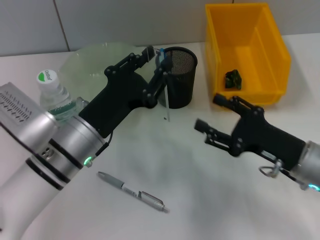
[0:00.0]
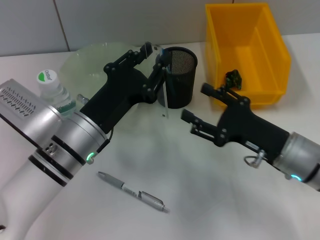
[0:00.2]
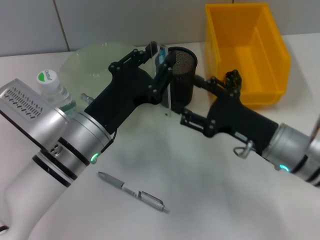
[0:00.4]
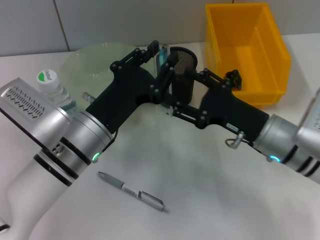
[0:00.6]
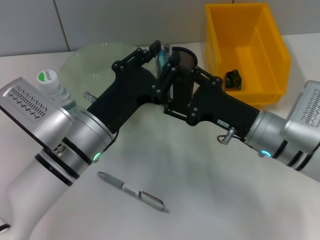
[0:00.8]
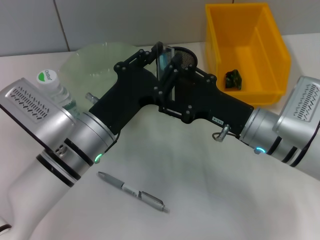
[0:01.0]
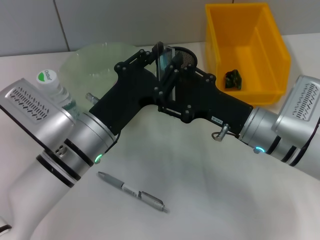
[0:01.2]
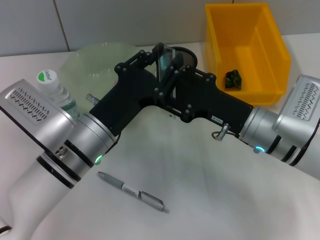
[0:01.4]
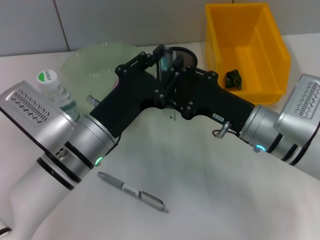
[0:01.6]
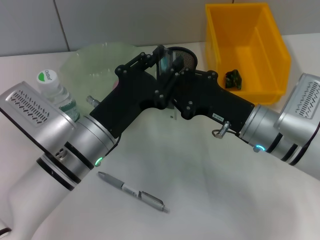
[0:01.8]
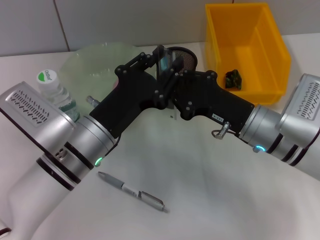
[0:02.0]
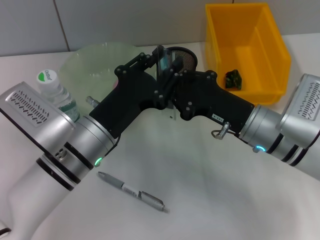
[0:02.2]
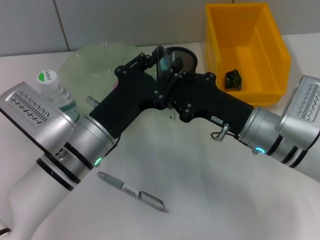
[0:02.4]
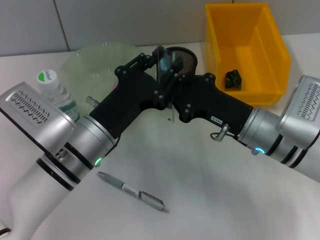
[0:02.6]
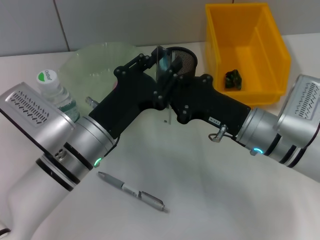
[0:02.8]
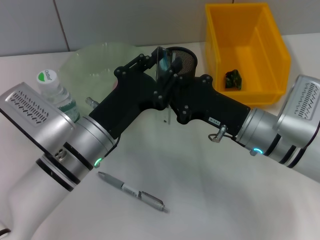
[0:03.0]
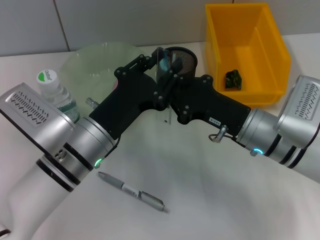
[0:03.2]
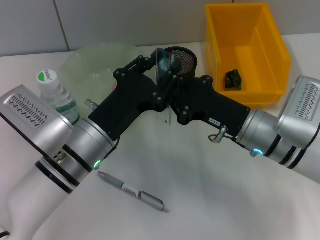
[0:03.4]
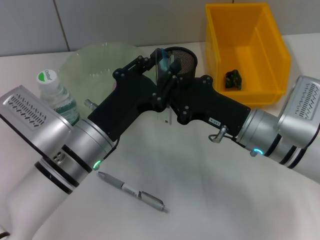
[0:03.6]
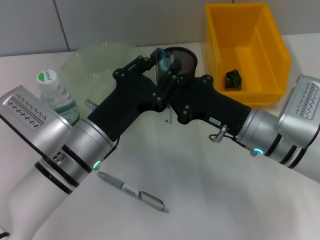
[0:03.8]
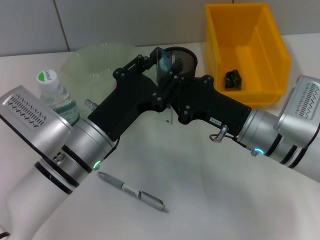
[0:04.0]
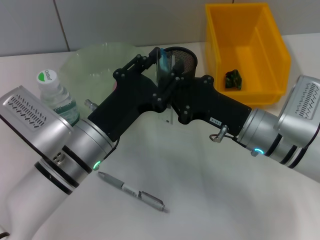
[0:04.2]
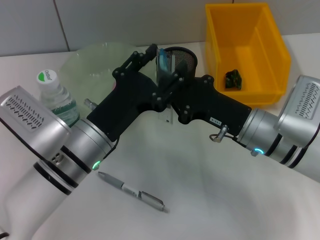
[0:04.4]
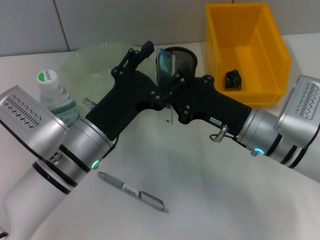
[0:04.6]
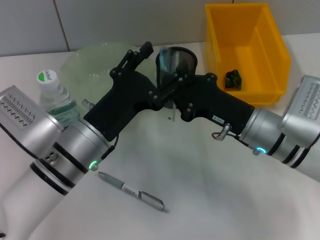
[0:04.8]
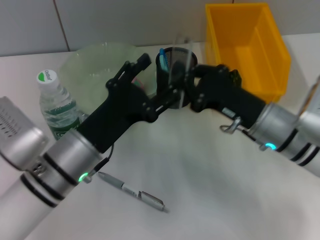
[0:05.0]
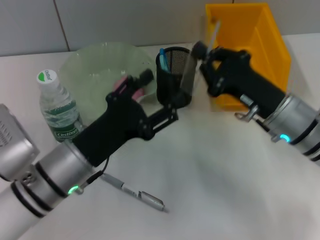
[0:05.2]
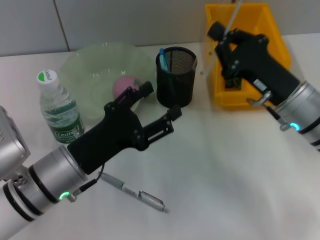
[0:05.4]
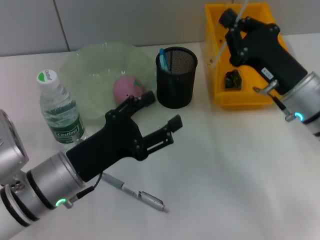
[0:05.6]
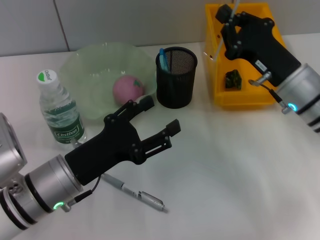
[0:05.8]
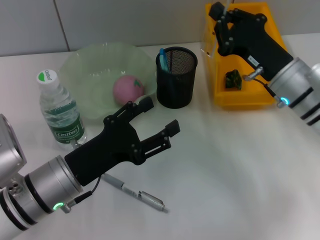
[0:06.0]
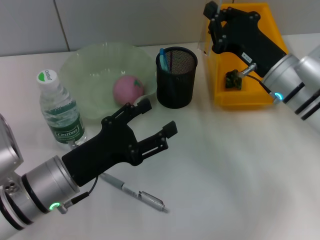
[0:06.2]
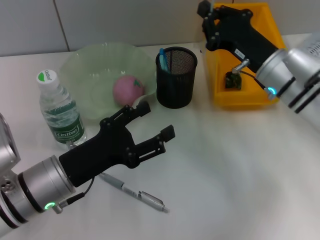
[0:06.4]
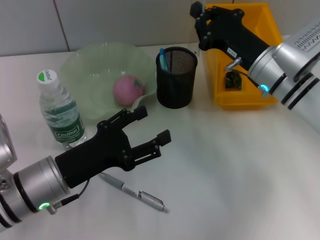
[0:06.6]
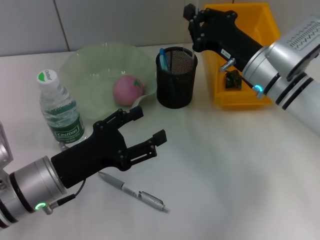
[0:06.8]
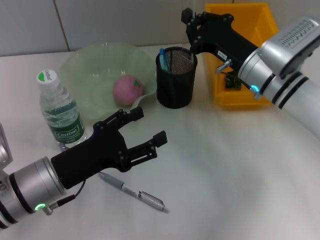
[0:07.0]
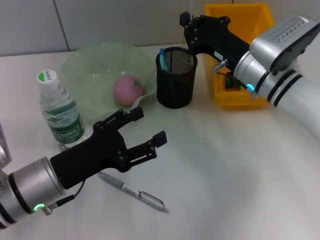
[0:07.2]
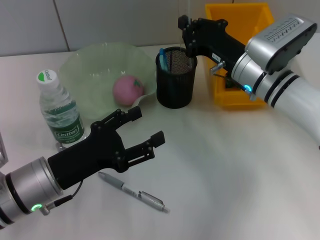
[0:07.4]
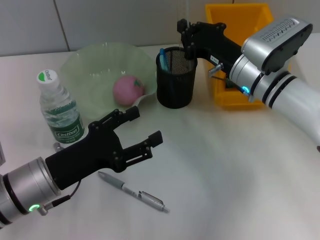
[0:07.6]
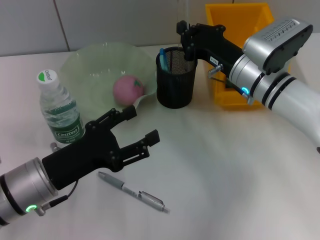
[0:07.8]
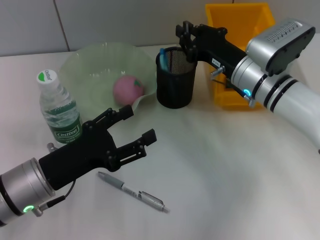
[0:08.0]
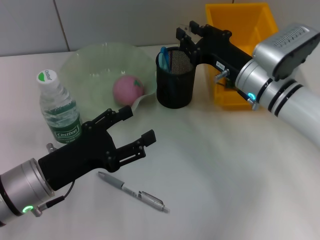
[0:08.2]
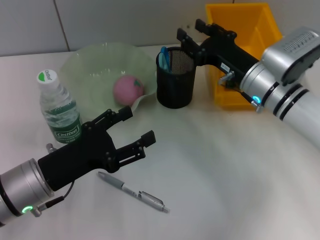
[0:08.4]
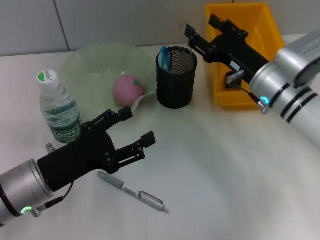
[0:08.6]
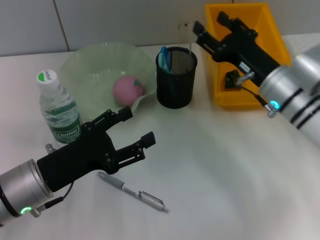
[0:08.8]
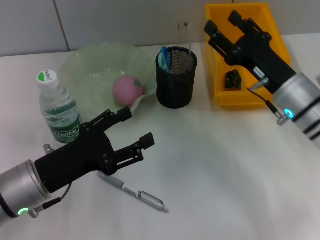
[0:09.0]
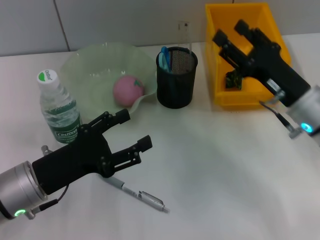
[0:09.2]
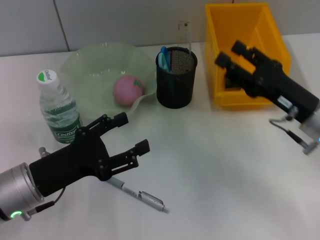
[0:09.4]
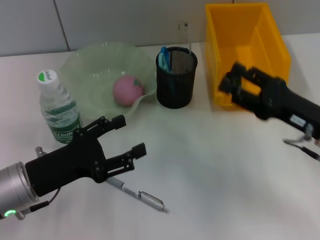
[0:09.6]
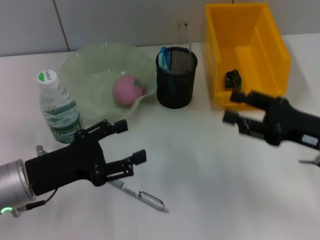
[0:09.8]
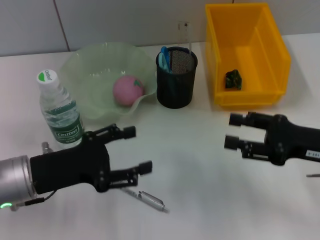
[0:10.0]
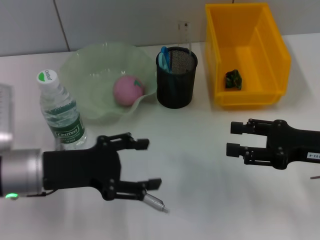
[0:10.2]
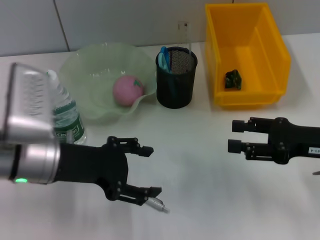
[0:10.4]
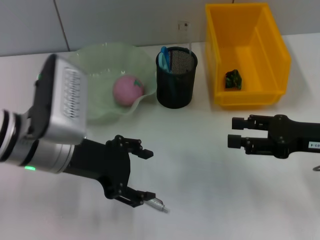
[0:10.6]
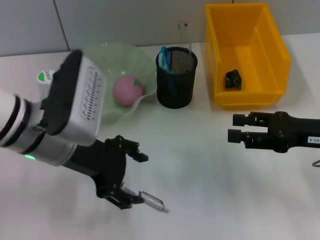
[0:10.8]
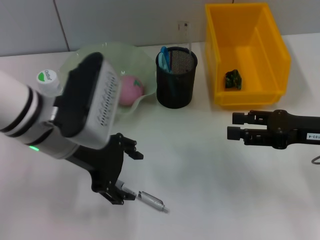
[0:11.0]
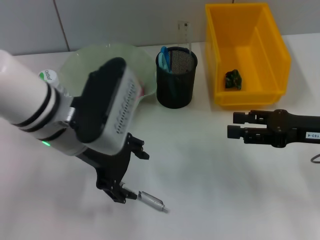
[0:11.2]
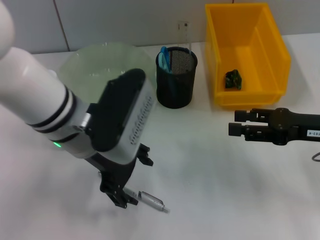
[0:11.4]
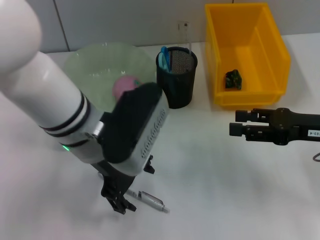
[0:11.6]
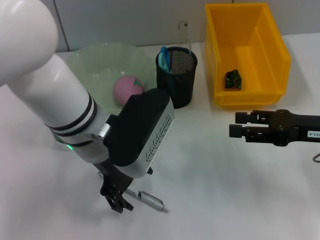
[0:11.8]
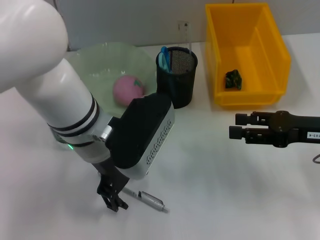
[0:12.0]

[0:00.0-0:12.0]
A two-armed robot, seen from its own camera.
Step, 0:00.0 to 0:04.2: Pass the ruler from the left hand to the right hand.
Step, 0:04.4 to 0:08.4: Place the ruler into the pen holder with the right hand.
0:00.0 to 0:01.6: The right gripper shifts about 10 cm to the left and forward.
0:01.6 to 0:03.0: The right gripper closes up.
0:03.0 to 0:04.4: The two grippers keep their place.
0:04.4 to 0:06.0: The right gripper ends up some 5 cm from where it was. The left gripper changes place by roughly 5 cm, and opens.
0:06.0 to 0:07.6: The right gripper changes place by roughly 5 cm.
0:07.6 to 0:09.0: The right gripper heads backward, covering about 5 cm, and opens.
0:09.0 to 0:10.4: The right gripper is displaced to the right and backward by some 10 cm, while the left gripper heads upward, covering roughly 5 cm.
0:10.4 to 0:12.0: The left gripper heads to the right, covering about 10 cm.

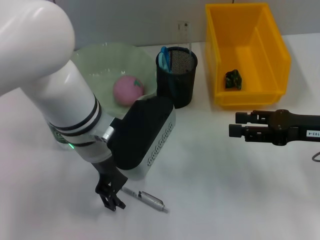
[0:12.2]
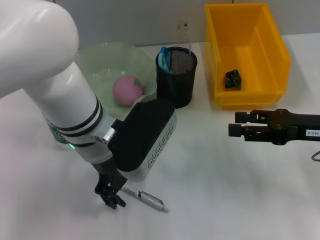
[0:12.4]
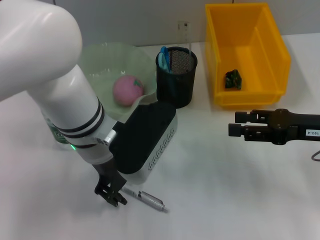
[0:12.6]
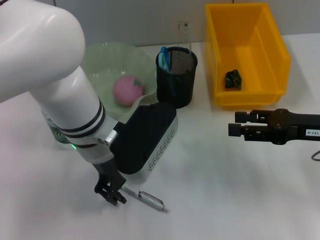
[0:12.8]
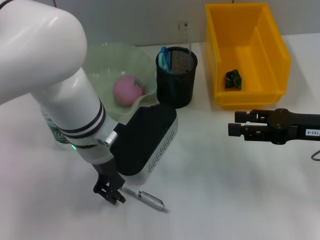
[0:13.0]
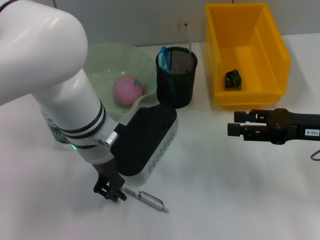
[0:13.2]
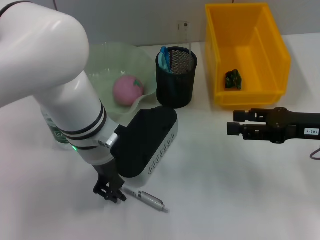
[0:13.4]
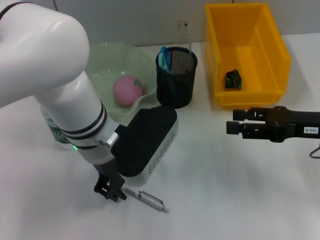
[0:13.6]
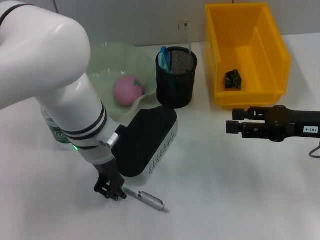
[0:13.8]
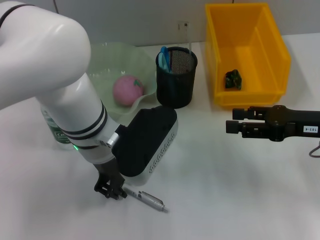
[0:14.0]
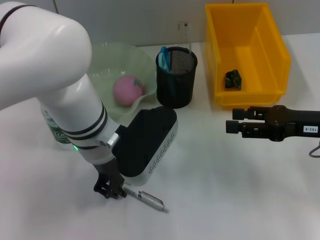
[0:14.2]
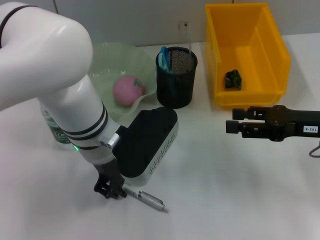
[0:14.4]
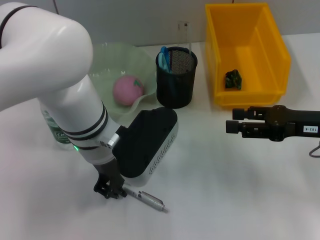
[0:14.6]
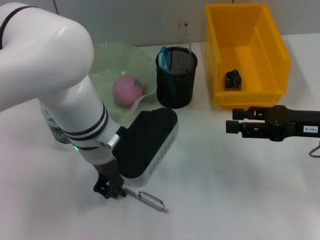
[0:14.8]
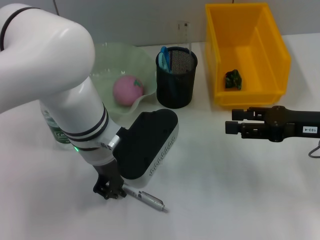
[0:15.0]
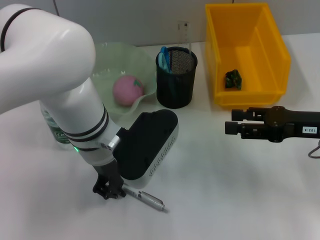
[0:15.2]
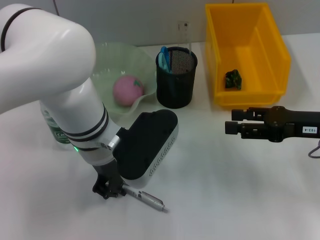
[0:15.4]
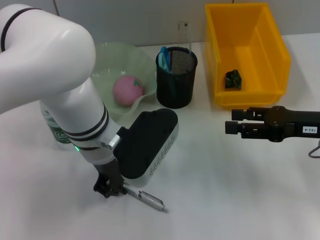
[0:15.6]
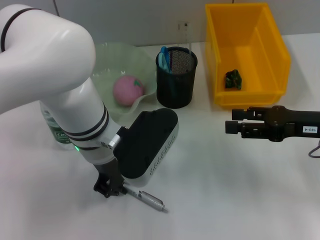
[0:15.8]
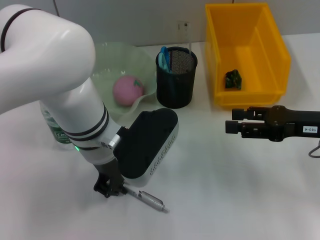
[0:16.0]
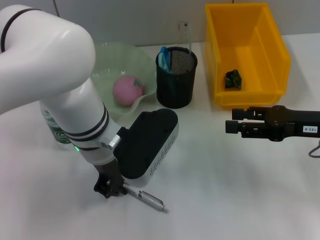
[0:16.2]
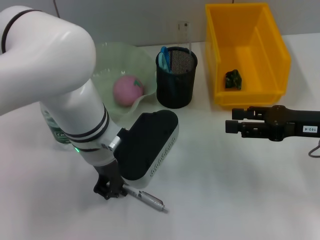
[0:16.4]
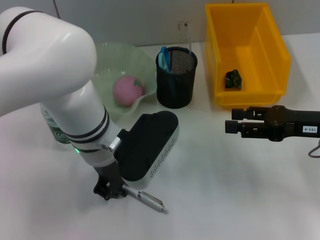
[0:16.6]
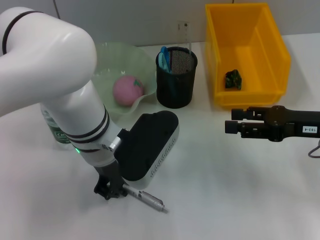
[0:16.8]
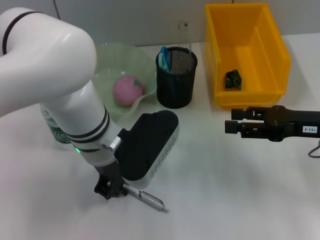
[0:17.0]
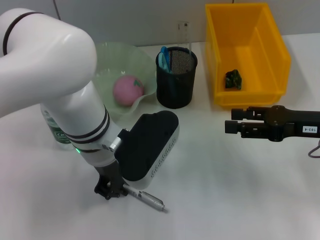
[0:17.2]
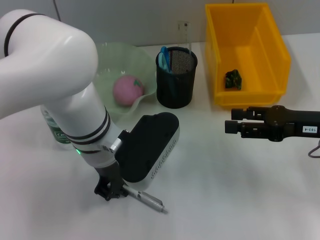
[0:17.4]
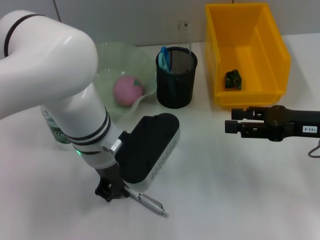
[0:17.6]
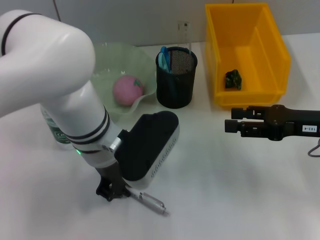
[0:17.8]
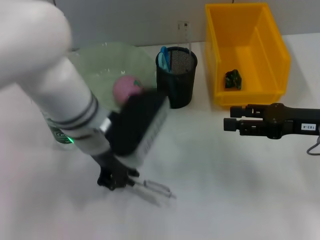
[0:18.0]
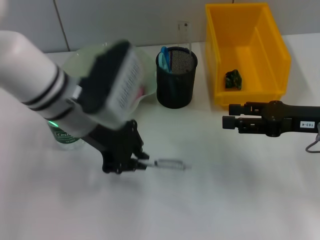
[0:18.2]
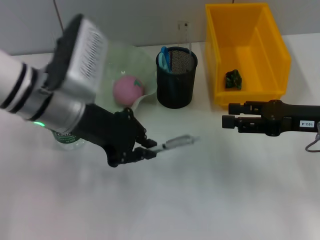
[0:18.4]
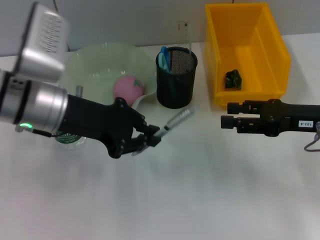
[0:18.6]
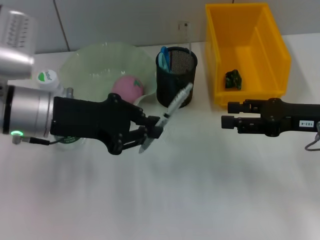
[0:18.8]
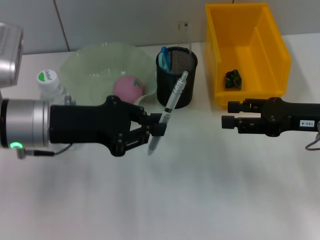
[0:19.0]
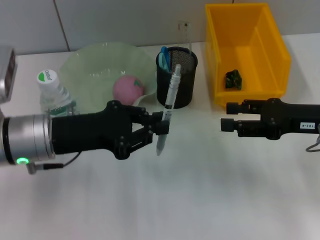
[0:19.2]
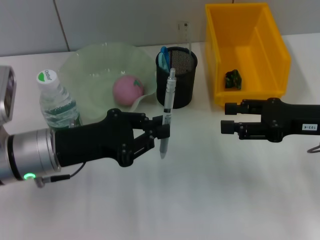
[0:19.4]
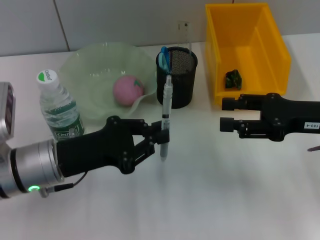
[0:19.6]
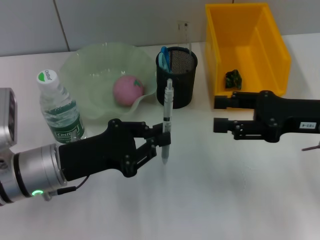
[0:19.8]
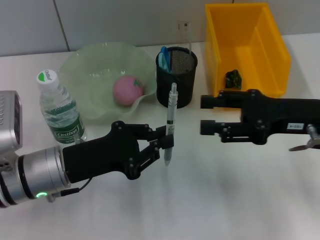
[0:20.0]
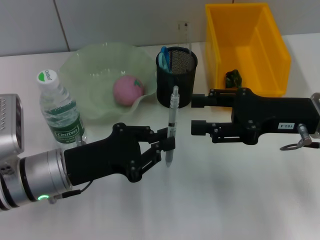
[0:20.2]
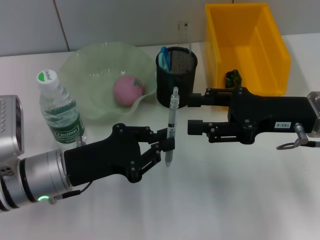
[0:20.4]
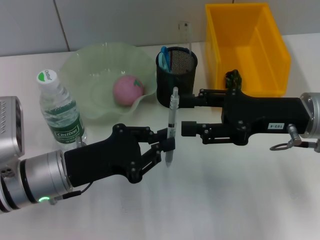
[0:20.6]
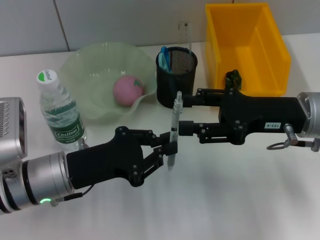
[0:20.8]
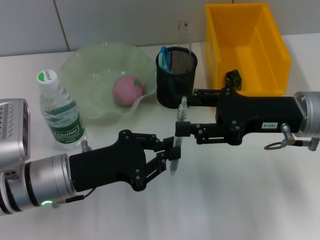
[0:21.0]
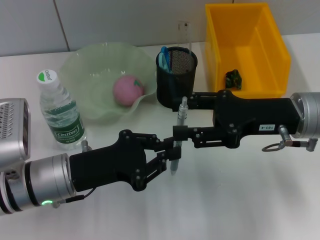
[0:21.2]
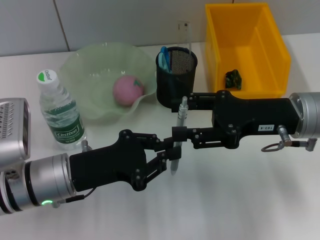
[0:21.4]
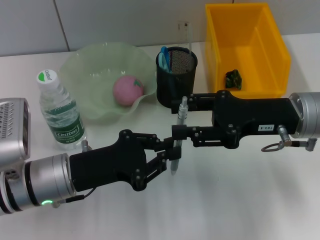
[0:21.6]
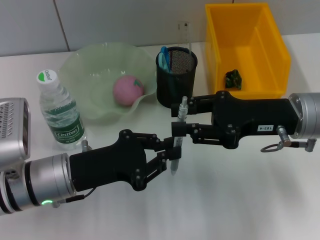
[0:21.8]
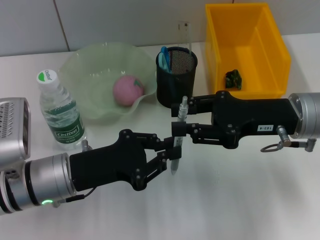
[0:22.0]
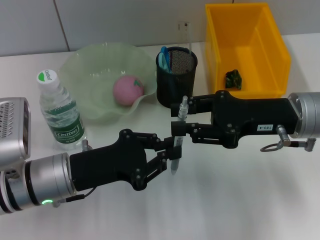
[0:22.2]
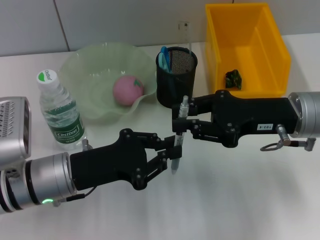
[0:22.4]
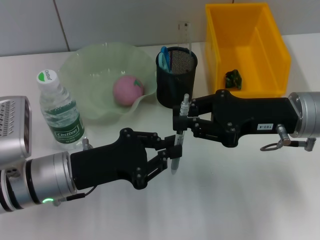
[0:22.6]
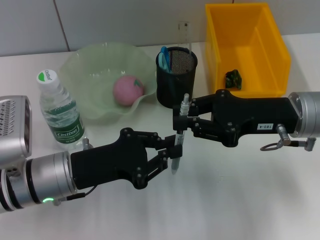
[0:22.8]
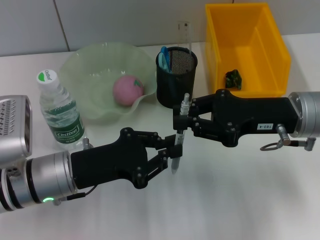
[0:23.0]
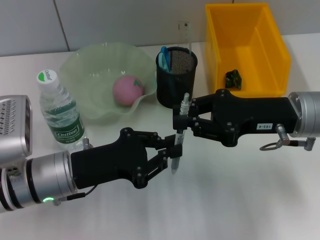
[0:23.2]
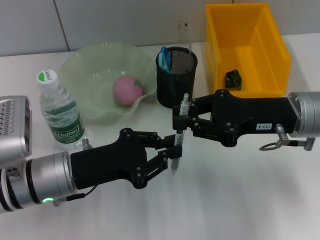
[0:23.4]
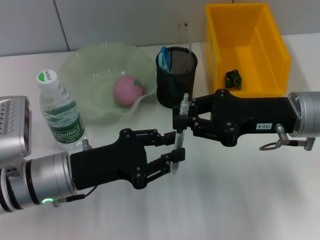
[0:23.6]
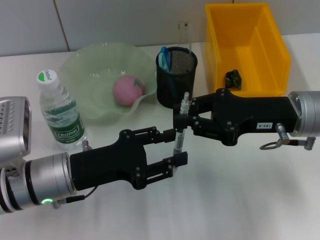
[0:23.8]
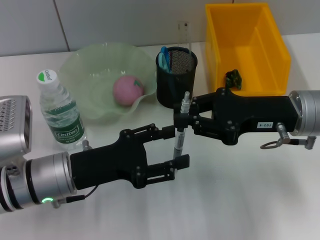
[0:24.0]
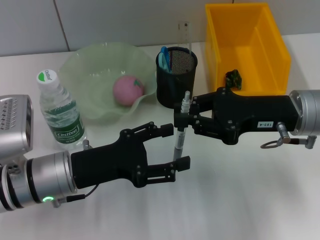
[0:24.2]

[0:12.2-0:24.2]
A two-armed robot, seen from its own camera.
Step, 0:12.2 to 0:17.4: Grab the gray spring-action pen with the left hand.
Step, 0:17.8 to 0:23.4: Pass the gray spring-action pen from the left hand to the right hand.
0:12.2 to 0:13.8: The left gripper closes up.
0:13.8 to 0:16.6: Both grippers stay about where they are.
0:16.6 to 0:18.2: The left gripper changes place by roughly 5 cm.
0:18.2 to 0:19.8: The left gripper heads downward, to the left and backward, covering approximately 15 cm.
0:19.8 to 0:21.2: The right gripper travels to the left by about 5 cm.
0:21.2 to 0:22.6: The right gripper closes its fingers.
0:22.6 to 0:24.2: The left gripper opens its fingers.
